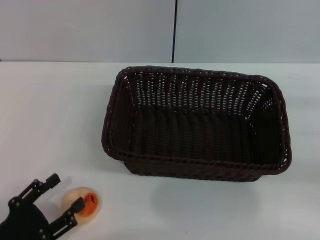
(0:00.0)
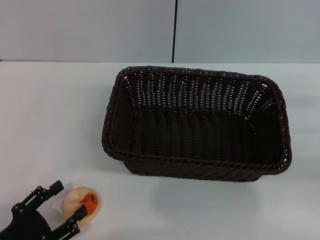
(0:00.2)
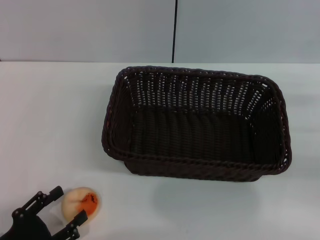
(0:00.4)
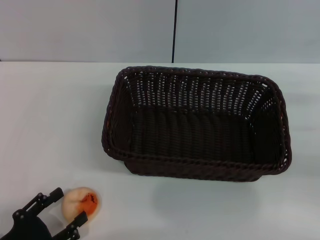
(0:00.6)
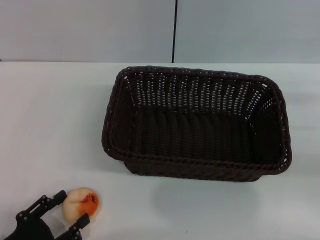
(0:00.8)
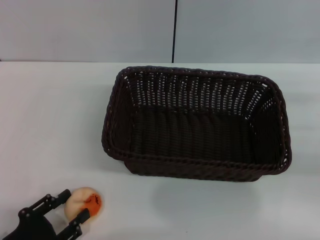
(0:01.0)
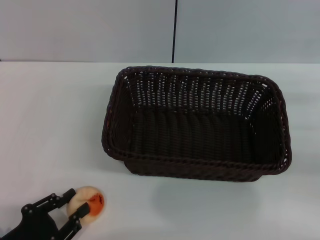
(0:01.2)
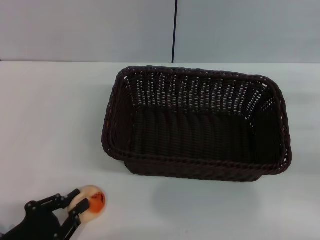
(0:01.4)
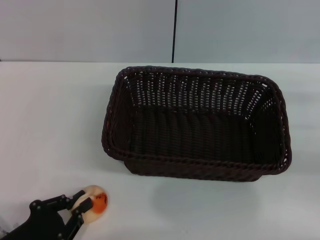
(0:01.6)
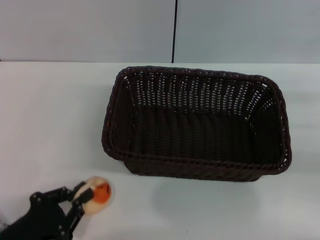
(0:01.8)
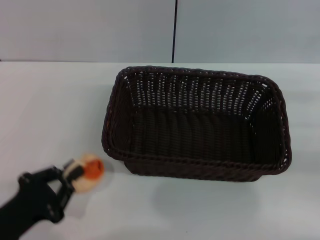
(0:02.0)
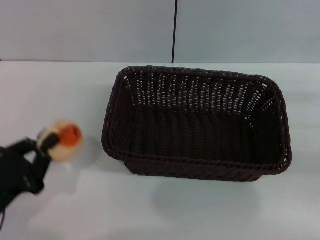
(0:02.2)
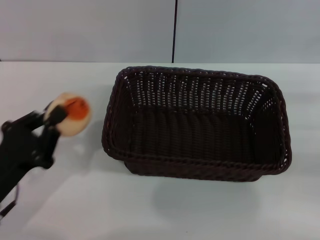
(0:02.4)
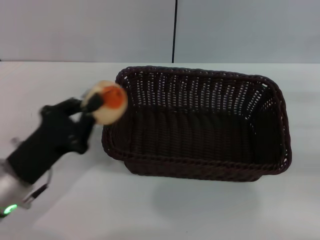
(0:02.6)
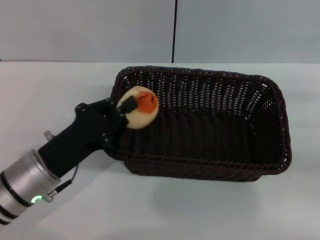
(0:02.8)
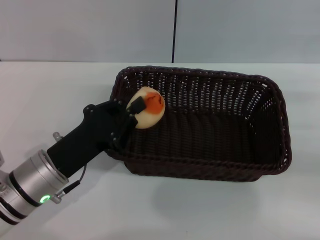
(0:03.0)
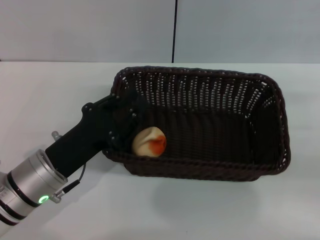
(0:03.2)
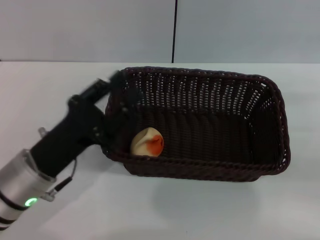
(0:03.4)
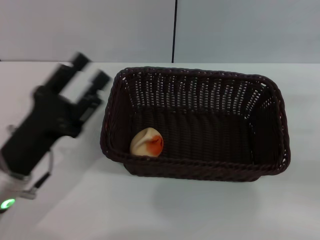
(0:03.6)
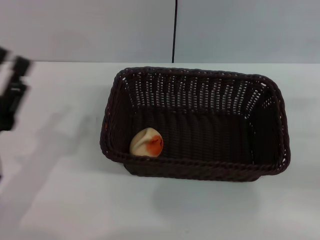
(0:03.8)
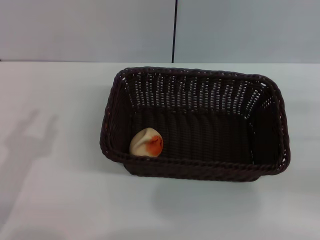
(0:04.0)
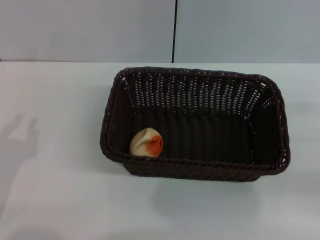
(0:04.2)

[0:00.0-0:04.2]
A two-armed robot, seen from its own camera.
Step, 0:00.0 to 0:02.0: Pick up the egg yolk pastry with the left gripper.
Step, 0:02.2 to 0:03.4: Place the egg yolk pastry into the basket with the left gripper.
0:00.0 to 0:01.4: The left gripper closes.
0:01.4 to 0:02.8: The left gripper is displaced forward and to the right by some 15 cm, and closes.
0:02.8 to 0:04.2: The left gripper is displaced to the left and backward by about 10 cm, and opens its fingers.
